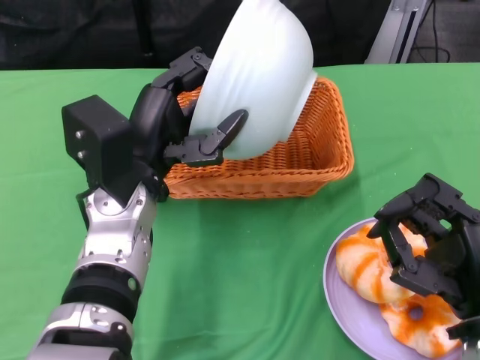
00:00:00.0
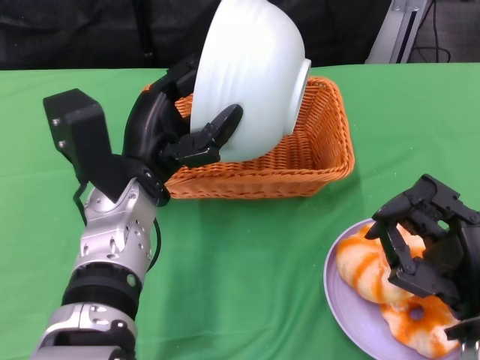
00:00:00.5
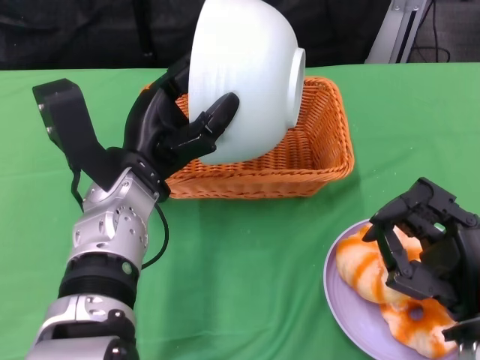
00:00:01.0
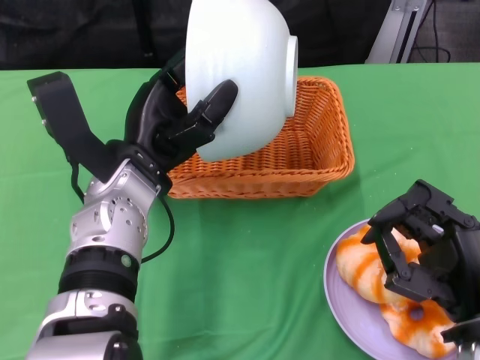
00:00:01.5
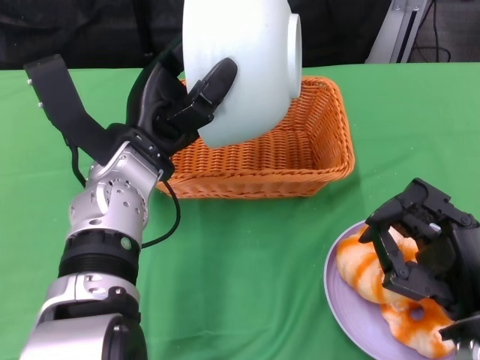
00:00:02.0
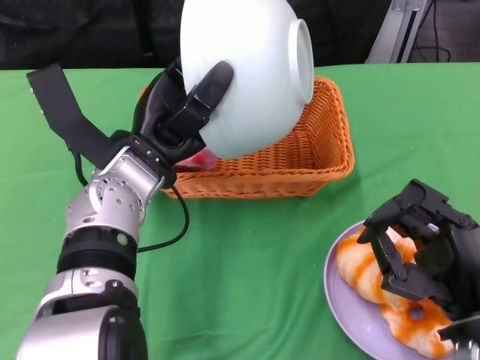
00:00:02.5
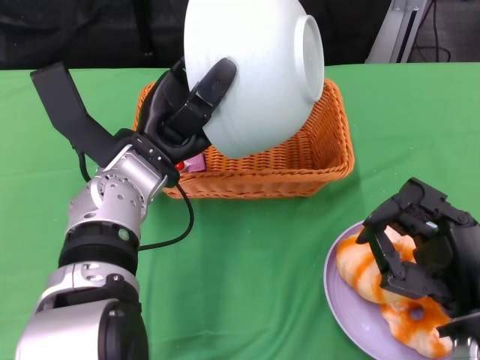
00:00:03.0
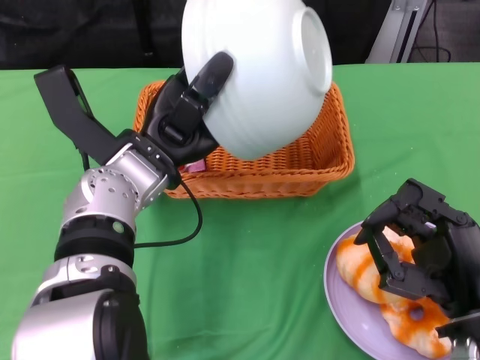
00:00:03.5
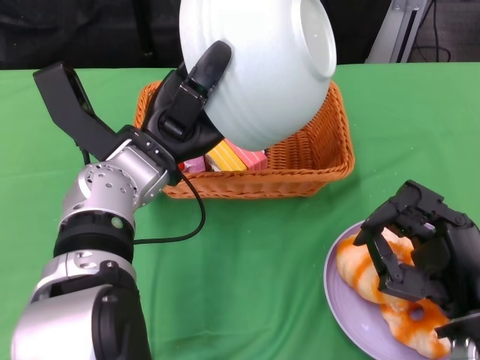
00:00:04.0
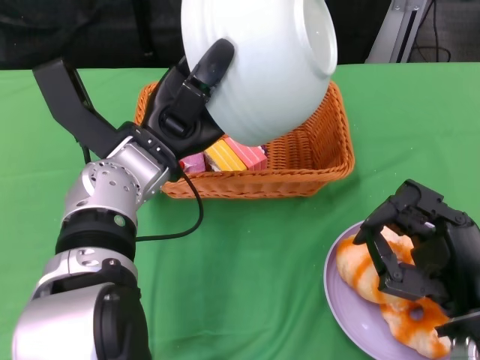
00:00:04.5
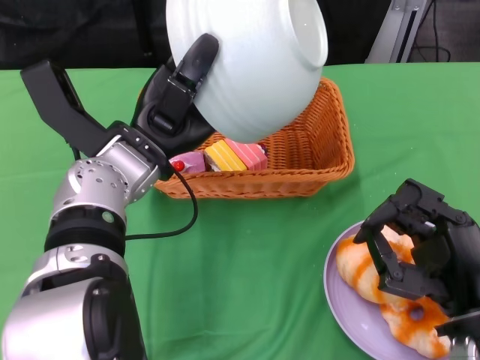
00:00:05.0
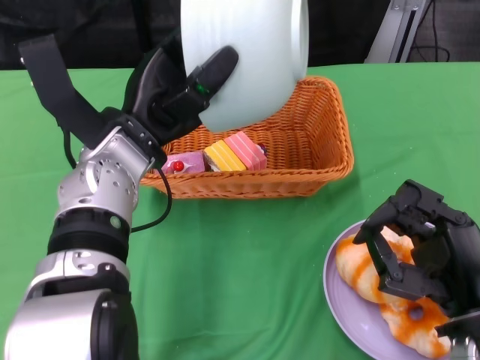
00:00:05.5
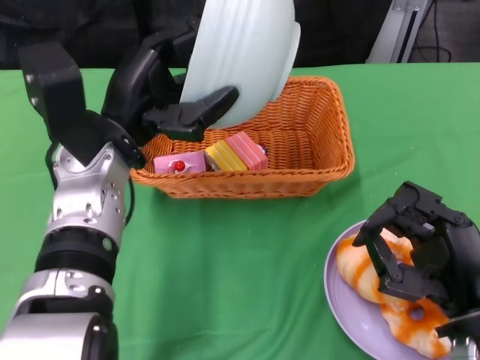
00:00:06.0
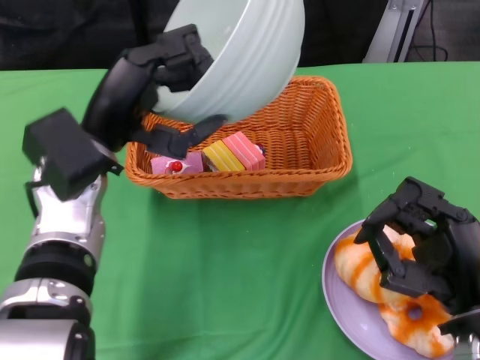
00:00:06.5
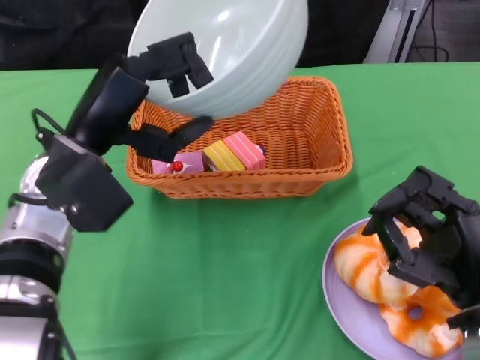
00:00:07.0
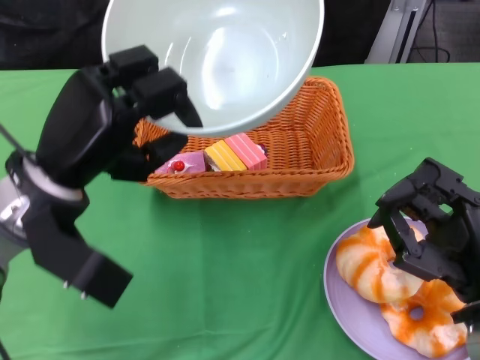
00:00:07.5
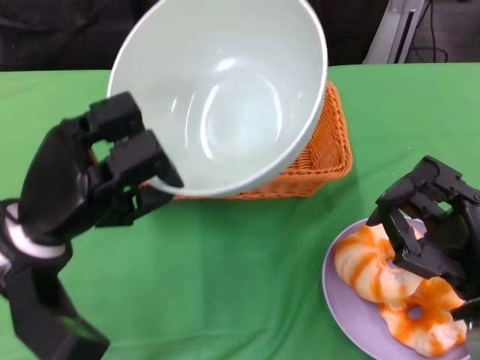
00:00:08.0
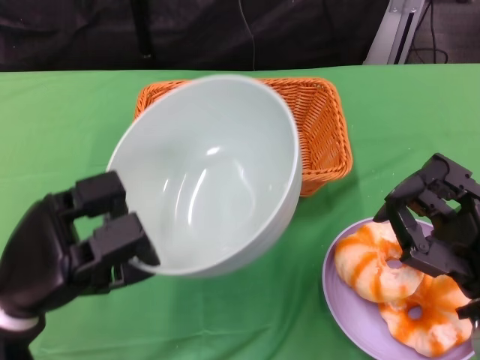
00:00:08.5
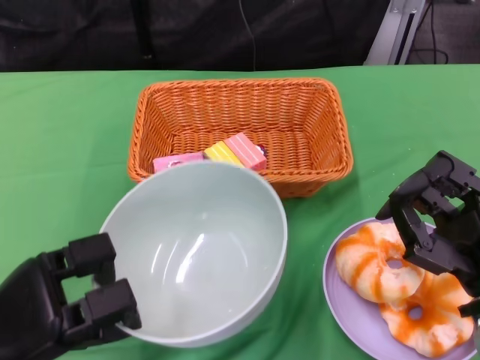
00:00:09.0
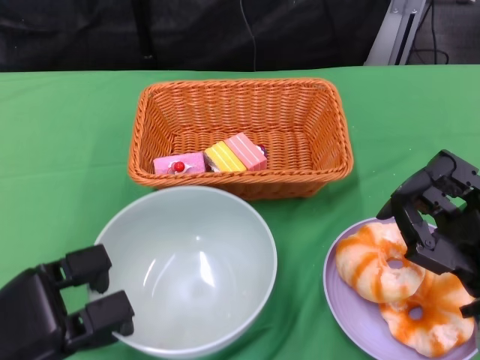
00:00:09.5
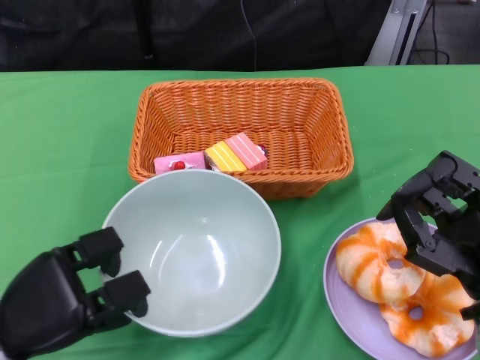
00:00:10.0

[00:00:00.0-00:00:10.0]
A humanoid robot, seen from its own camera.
Step, 00:00:00.0 to 00:00:05.0: Pour the cake into the basket with the left gripper.
00:00:06.0 to 00:00:08.0: The left hand shifts some 10 cm backward and to the left.
00:00:08.0 to 00:00:10.0: The left hand moves downward and backward, about 10 cm.

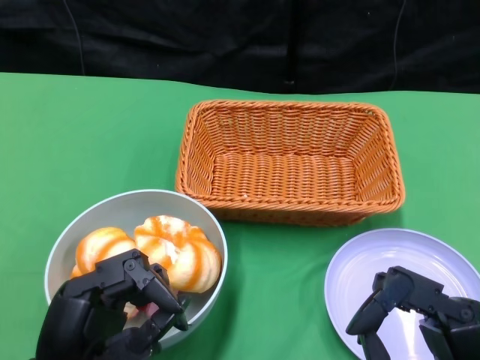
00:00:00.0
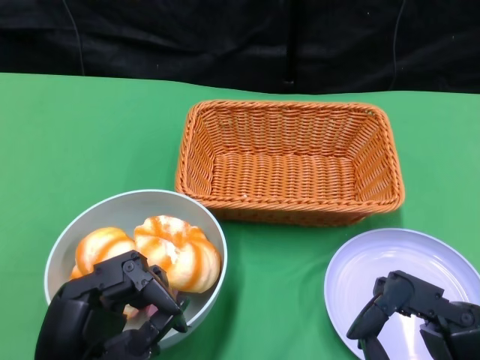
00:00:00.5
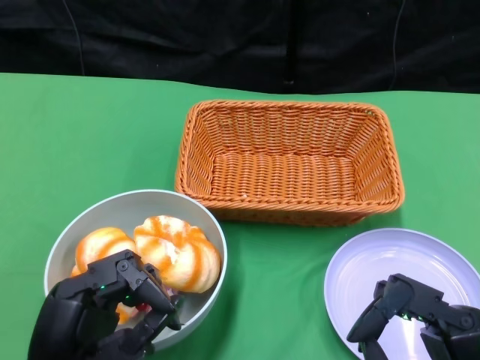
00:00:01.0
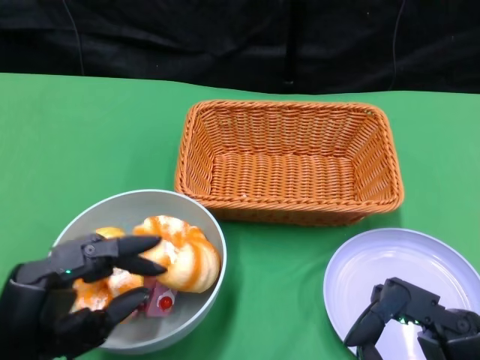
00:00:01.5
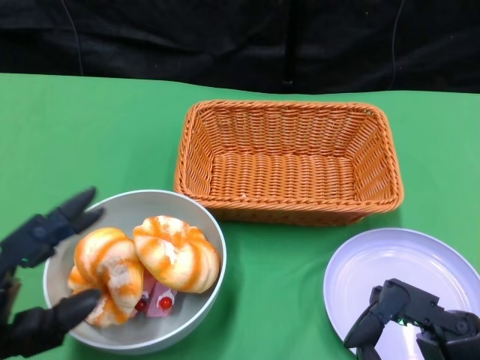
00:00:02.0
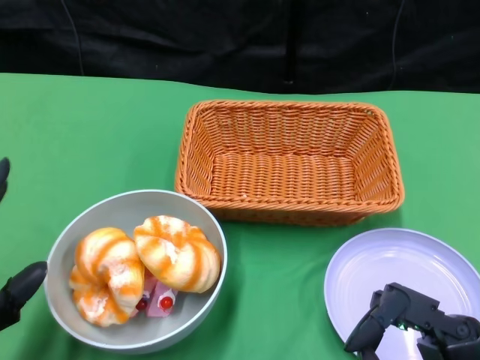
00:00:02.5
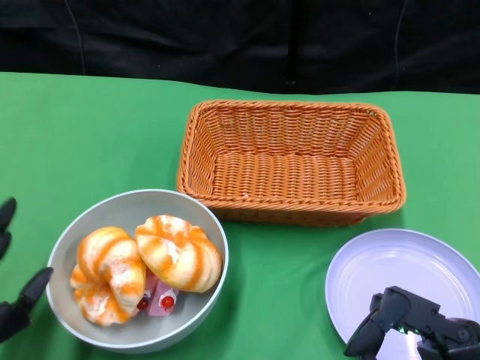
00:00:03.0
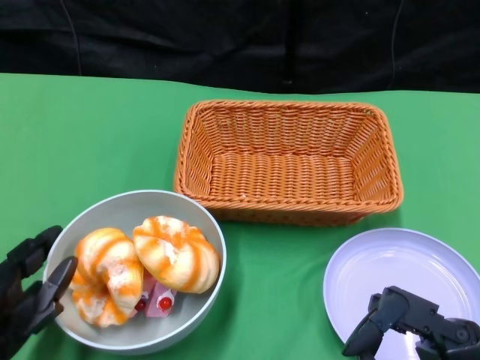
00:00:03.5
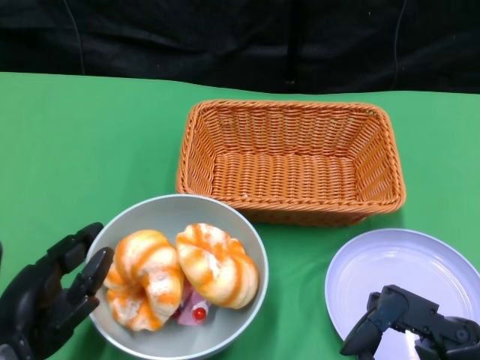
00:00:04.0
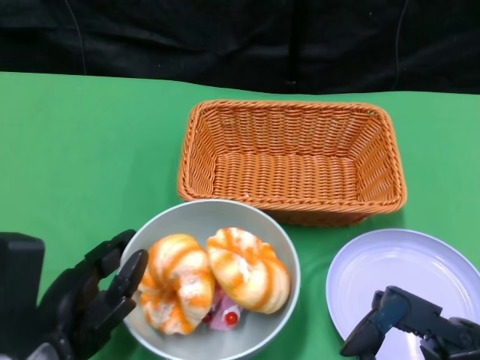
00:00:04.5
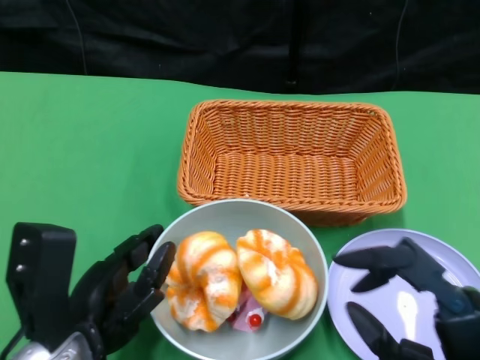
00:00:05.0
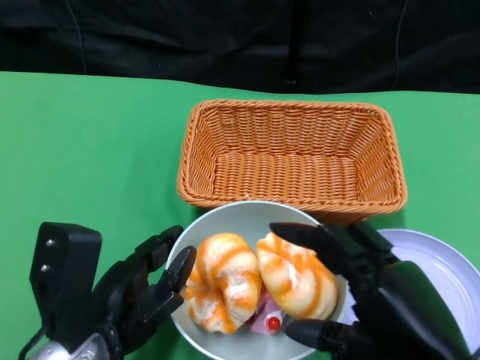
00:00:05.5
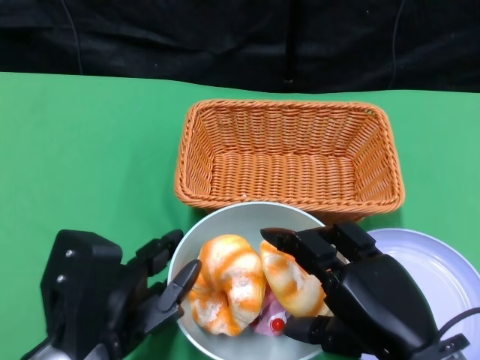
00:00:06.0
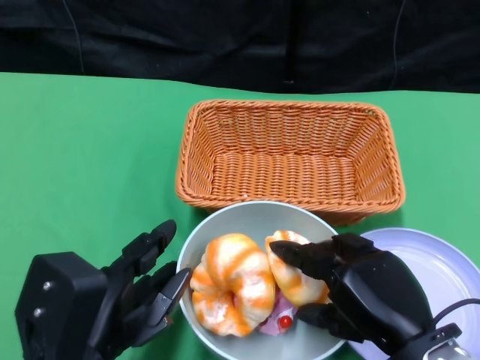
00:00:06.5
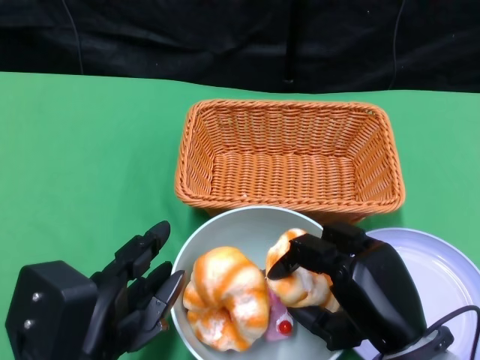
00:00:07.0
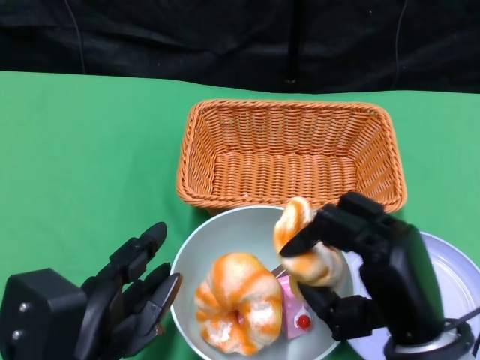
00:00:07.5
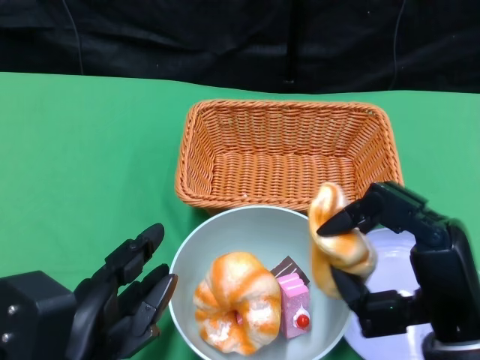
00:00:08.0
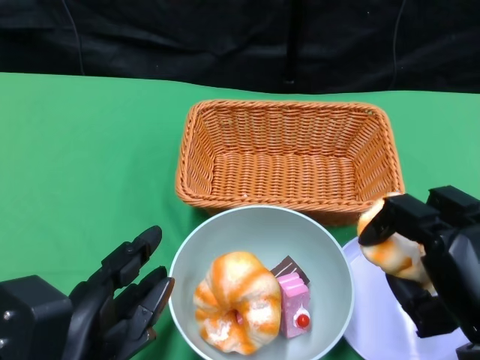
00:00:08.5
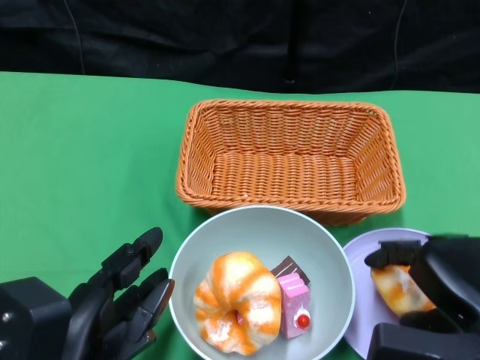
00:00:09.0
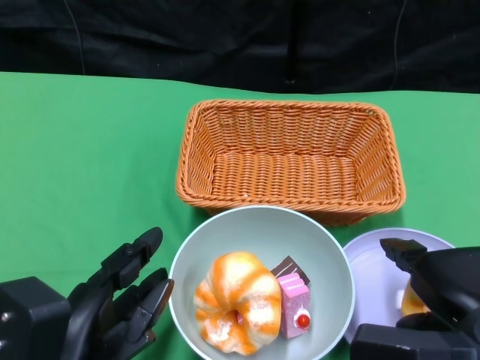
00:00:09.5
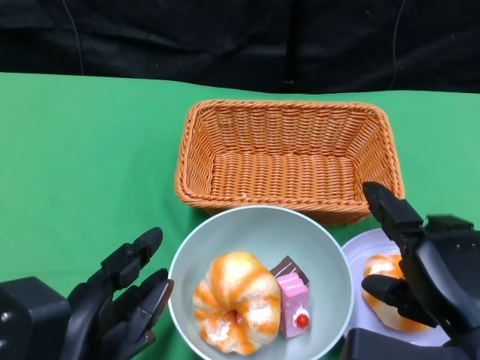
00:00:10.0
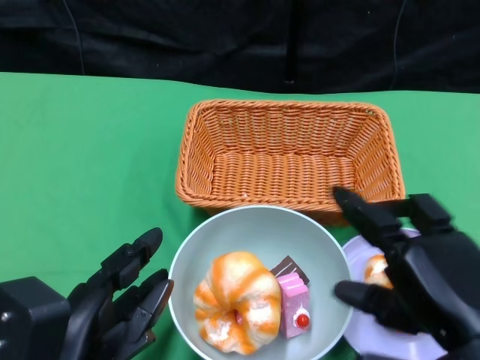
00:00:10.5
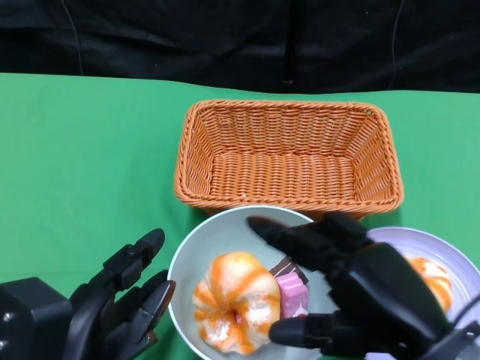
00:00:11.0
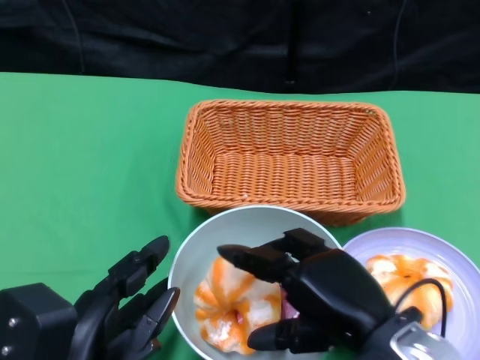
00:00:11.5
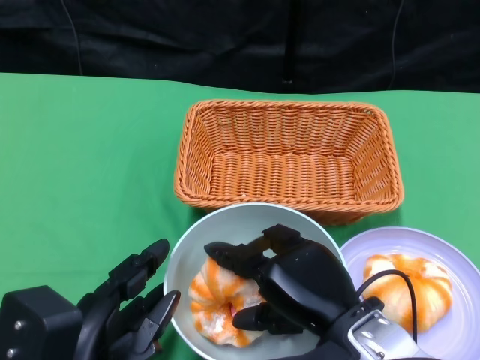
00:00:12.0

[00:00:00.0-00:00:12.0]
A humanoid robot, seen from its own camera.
Step, 00:00:00.0 to 00:00:05.0: Push the bowl to the center of the table using the left gripper.
00:00:04.0 to 00:00:06.0: The left hand heads to the right, covering about 5 cm; the right hand moves forward, approximately 5 cm.
00:00:10.0 to 00:00:12.0: The right hand heads to the left and downward, covering roughly 10 cm.

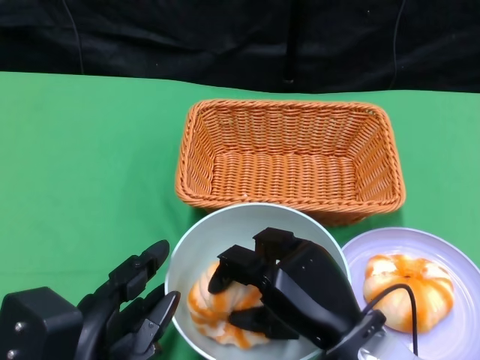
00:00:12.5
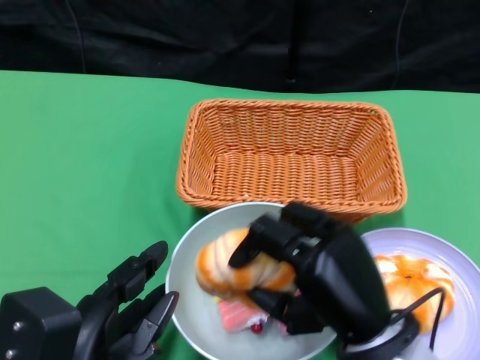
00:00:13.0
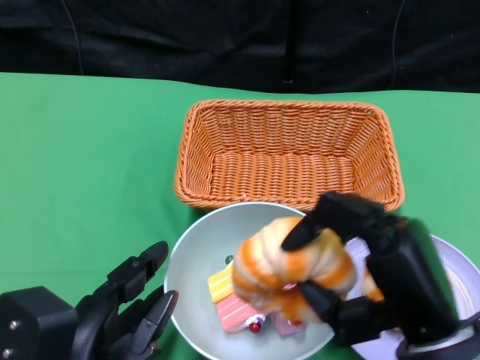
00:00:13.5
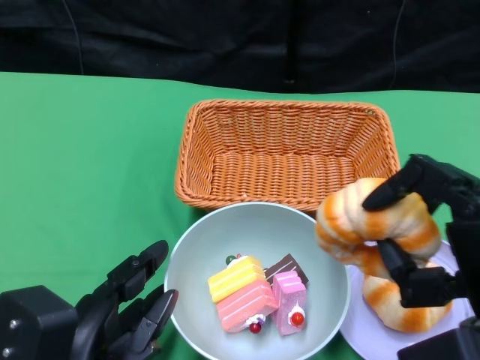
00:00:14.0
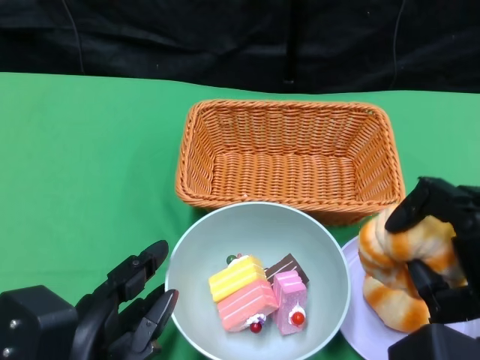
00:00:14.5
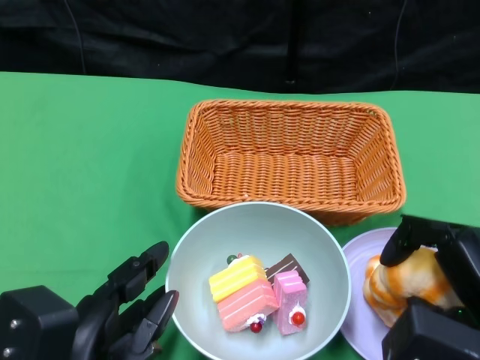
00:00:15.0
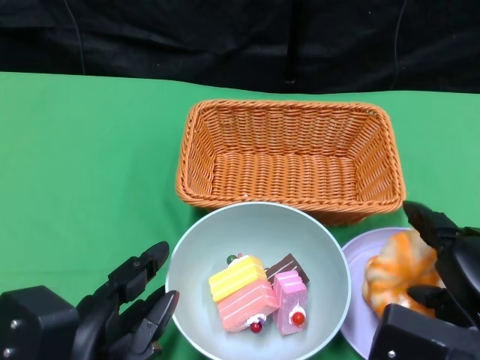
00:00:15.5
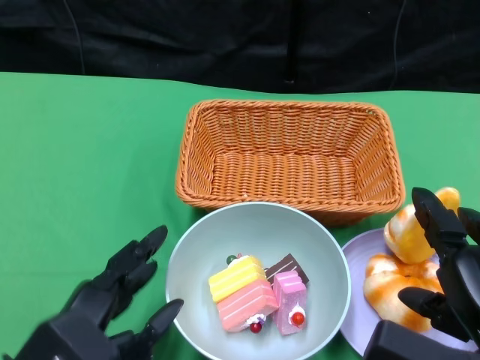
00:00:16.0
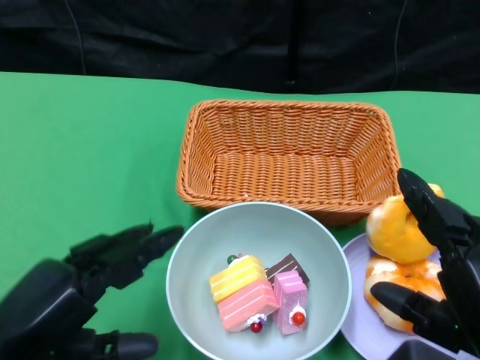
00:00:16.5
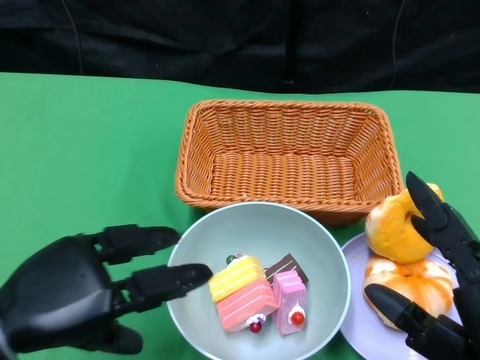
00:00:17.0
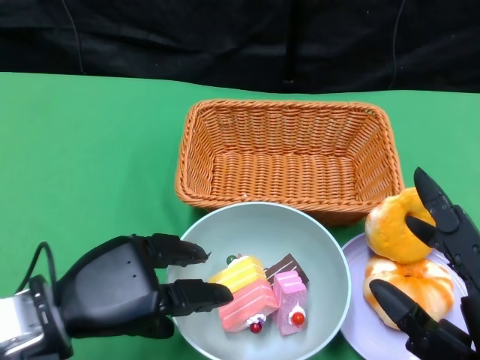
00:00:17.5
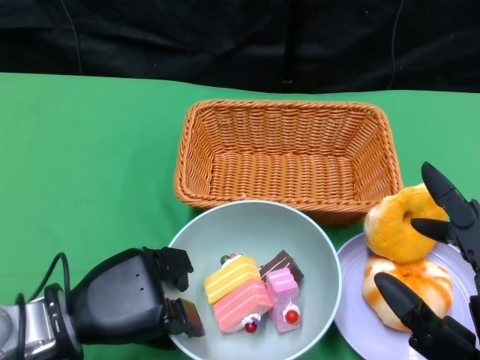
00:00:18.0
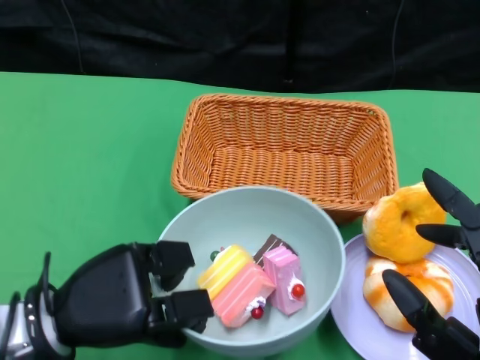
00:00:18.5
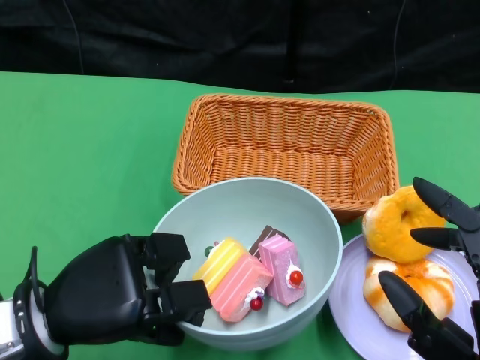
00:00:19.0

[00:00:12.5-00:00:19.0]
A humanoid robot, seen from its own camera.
Step, 00:00:12.5 to 00:00:16.0: Pick up the bread with the right gripper and place it on the plate.
Step, 00:00:16.5 to 00:00:18.0: Grasp the bowl with the left gripper.
00:00:12.5 to 00:00:14.5: The right hand is displaced to the right and upward by some 15 cm.
00:00:14.5 to 00:00:17.0: The left hand travels to the left by some 5 cm. Meanwhile the right hand goes some 5 cm backward.
